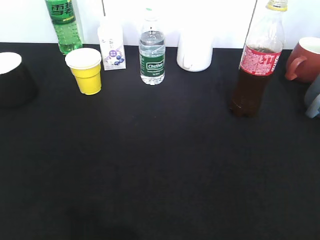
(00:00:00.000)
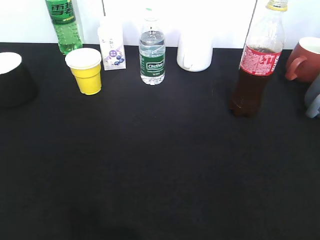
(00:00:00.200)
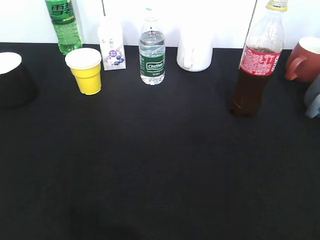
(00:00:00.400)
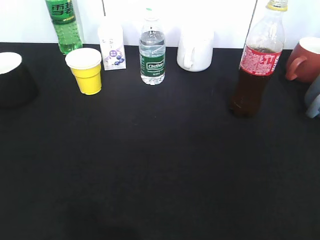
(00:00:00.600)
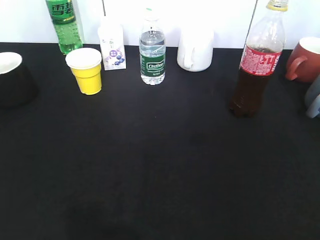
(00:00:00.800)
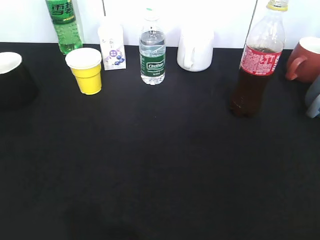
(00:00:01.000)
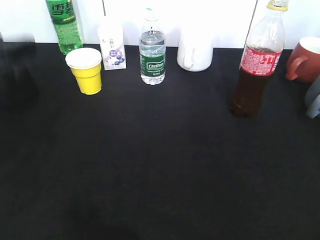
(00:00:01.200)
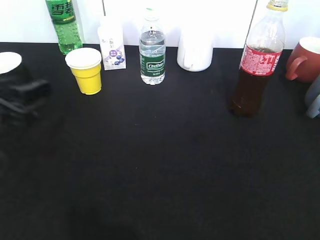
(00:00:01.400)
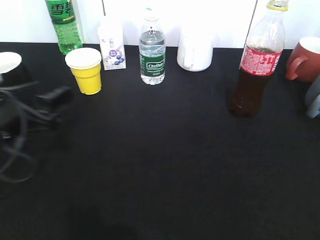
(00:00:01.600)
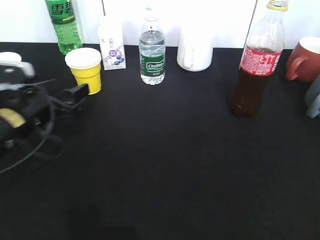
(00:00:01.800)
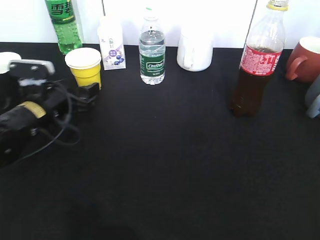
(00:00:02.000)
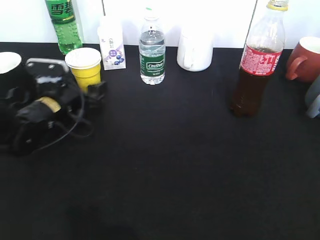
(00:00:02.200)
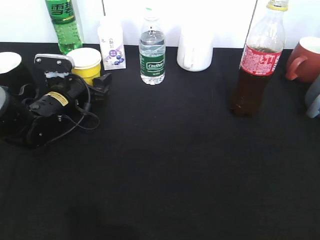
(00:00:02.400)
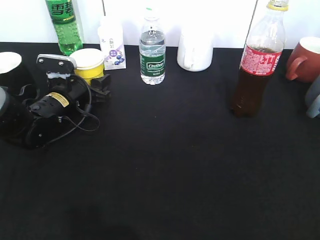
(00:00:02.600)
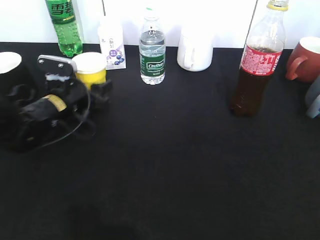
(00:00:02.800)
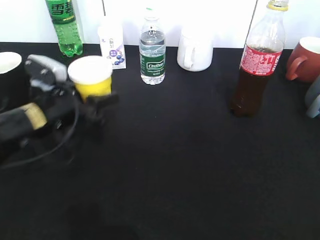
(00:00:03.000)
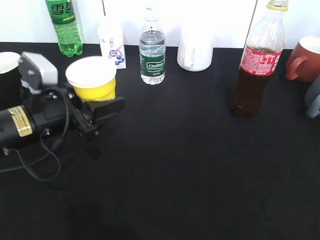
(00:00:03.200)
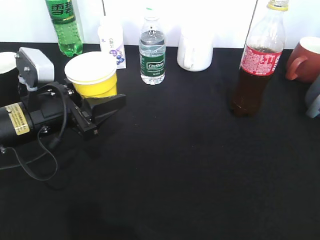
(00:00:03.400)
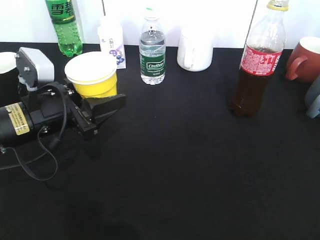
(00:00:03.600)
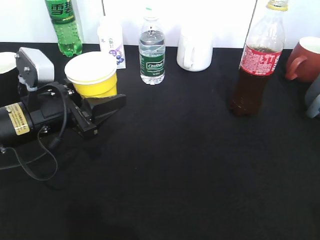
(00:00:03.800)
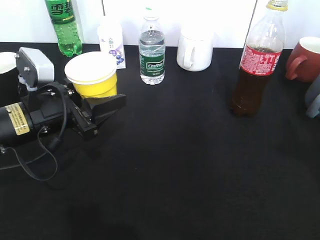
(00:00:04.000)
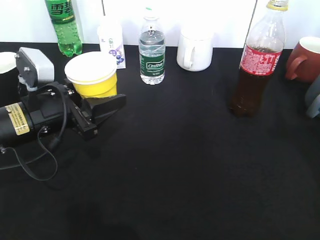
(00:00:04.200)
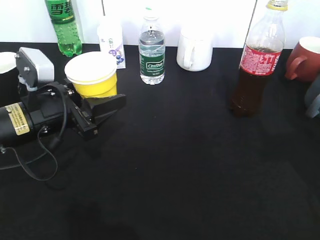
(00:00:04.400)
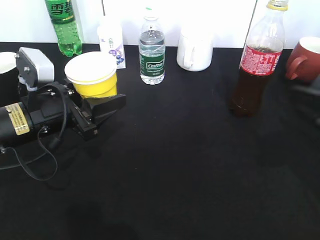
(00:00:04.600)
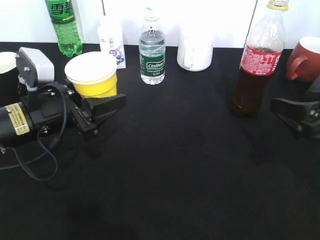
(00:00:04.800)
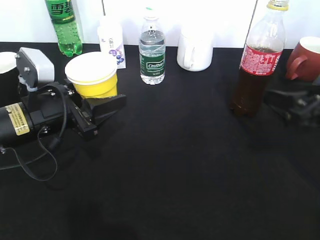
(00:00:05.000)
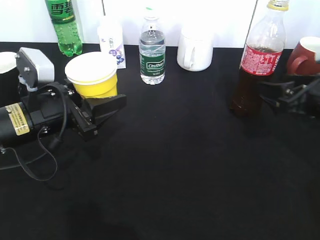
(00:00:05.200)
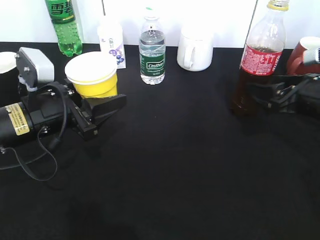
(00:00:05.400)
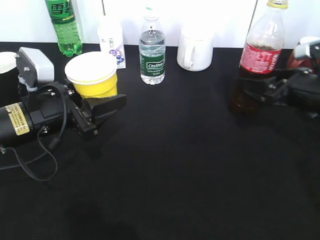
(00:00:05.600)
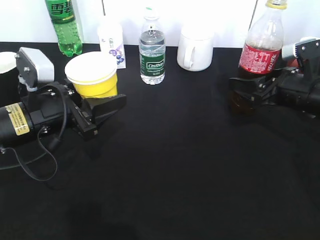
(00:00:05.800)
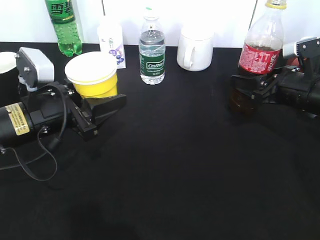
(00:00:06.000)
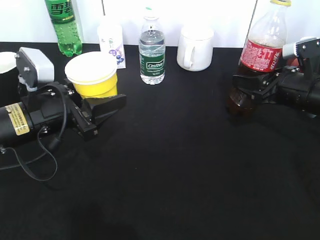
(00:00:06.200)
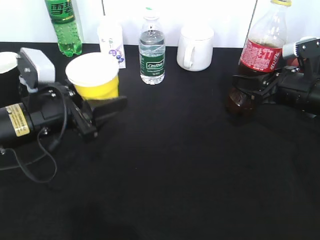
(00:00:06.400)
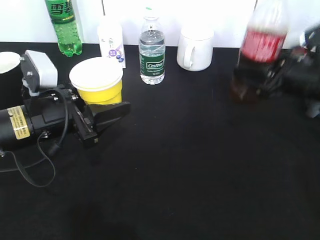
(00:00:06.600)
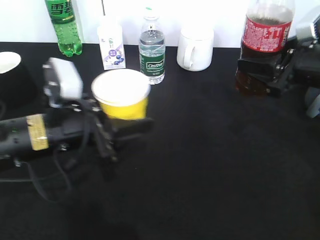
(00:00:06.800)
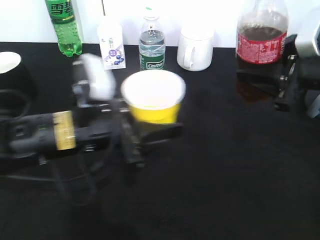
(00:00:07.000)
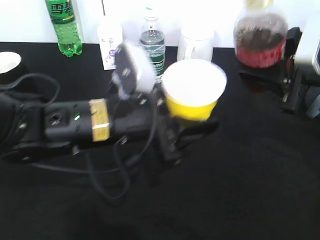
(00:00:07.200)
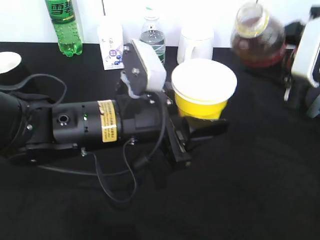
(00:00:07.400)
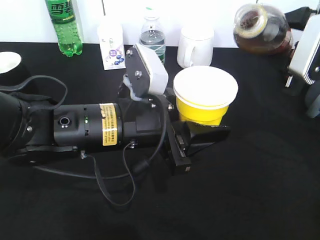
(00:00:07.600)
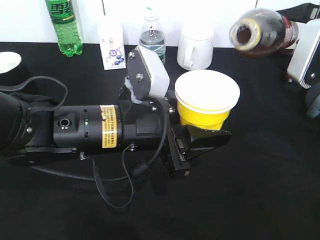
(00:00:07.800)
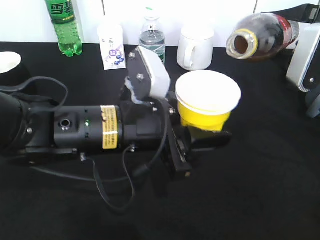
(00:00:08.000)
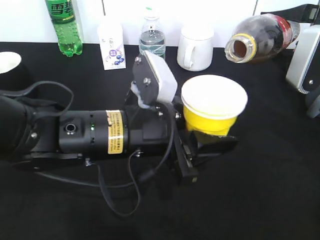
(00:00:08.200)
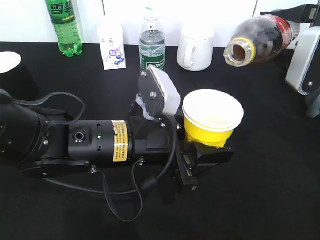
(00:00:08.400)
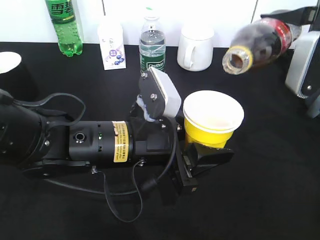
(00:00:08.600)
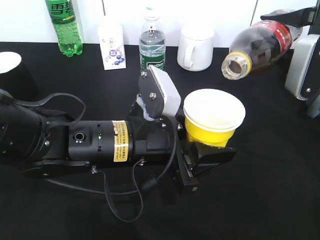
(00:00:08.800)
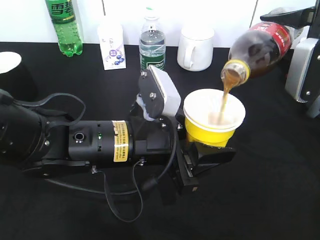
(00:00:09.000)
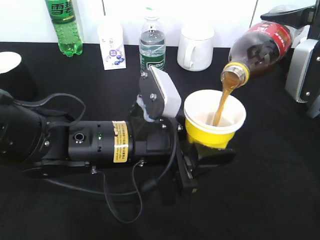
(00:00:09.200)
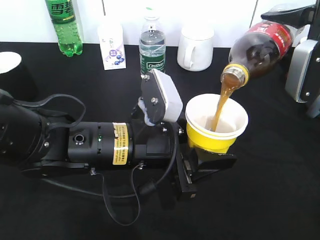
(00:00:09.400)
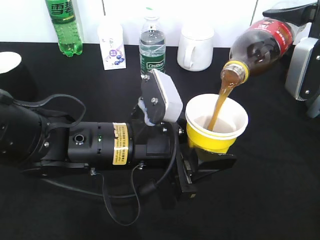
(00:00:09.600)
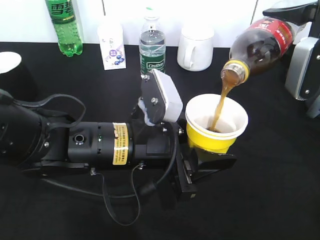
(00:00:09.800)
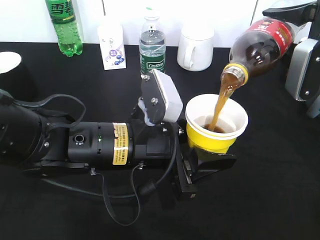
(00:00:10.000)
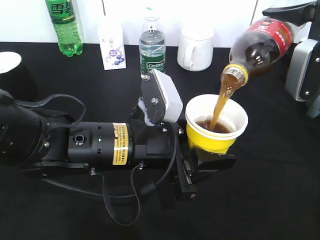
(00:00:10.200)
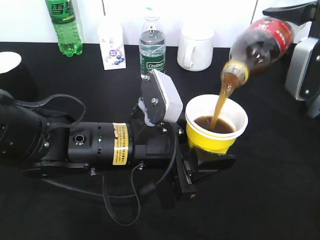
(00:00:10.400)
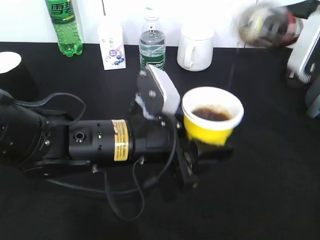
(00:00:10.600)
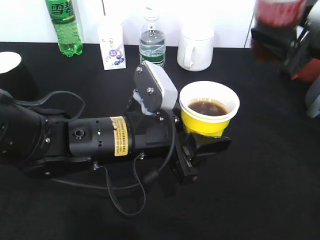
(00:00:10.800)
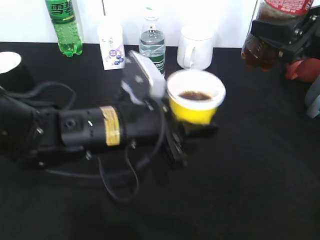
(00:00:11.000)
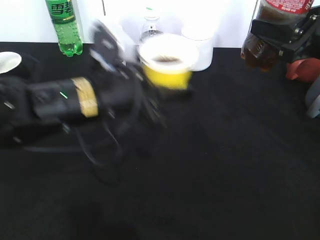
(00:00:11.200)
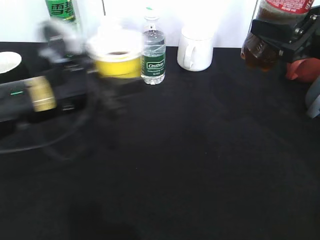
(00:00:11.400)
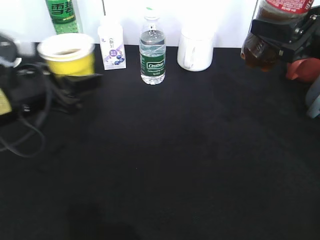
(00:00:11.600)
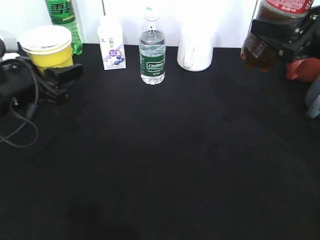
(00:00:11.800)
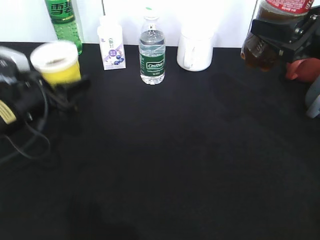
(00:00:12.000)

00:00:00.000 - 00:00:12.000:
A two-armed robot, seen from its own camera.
Step, 00:00:00.000 - 00:00:02.400: Grasp the yellow paper cup with left gripper.
Step, 00:00:02.800 - 00:00:04.200: Lift the yellow paper cup with left gripper.
Step, 00:00:04.600 - 00:00:06.200: Grasp the bottle with cola with right gripper.
Step, 00:00:06.400 - 00:00:10.600: Pour the cola from bottle to cup with right gripper.
00:00:00.000 - 00:00:01.600: The left gripper moves forward, downward and to the right, approximately 30 cm, and opens its fingers.
00:00:01.600 - 00:00:03.000: The left gripper goes some 5 cm forward, and closes its fingers.
00:00:03.000 - 00:00:04.400: The right gripper shifts some 20 cm forward.
00:00:04.400 - 00:00:06.000: The right gripper travels forward and downward by roughly 20 cm.
00:00:06.000 - 00:00:07.600: The left gripper heads to the right, covering approximately 15 cm. Meanwhile the right gripper shifts approximately 10 cm upward, and closes up.
00:00:09.000 - 00:00:10.400: The grippers move only a little.
00:00:10.400 - 00:00:12.000: The left gripper goes approximately 20 cm to the left and forward.

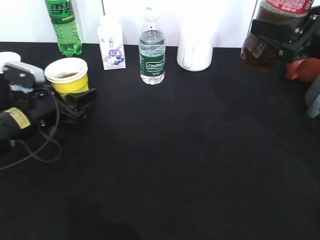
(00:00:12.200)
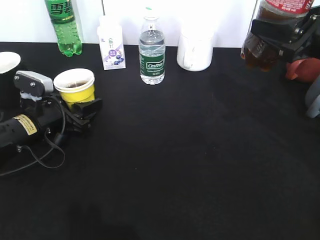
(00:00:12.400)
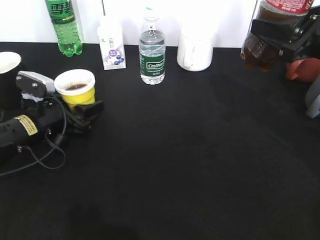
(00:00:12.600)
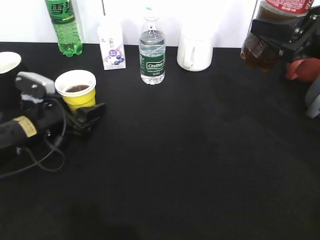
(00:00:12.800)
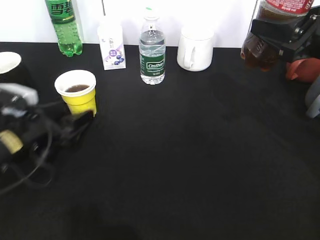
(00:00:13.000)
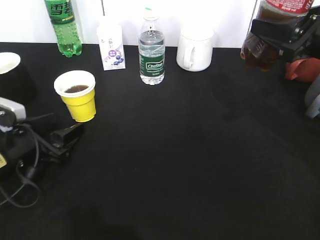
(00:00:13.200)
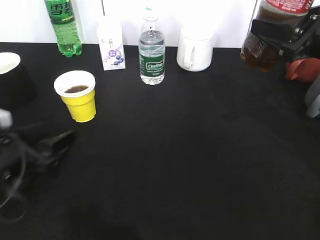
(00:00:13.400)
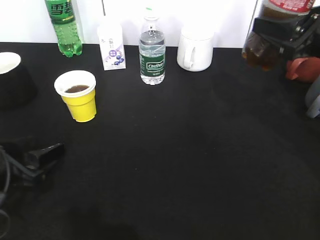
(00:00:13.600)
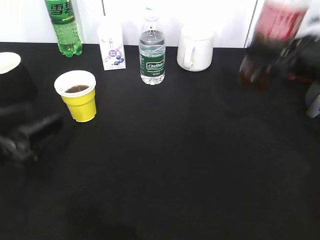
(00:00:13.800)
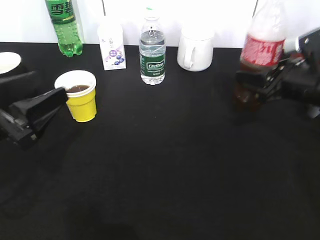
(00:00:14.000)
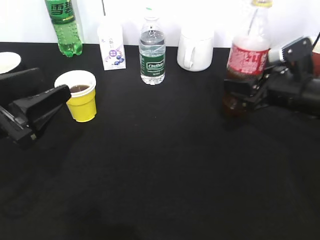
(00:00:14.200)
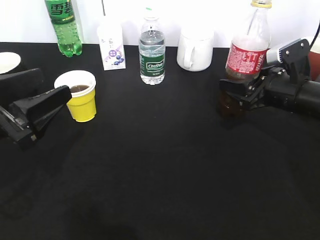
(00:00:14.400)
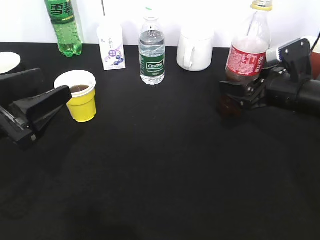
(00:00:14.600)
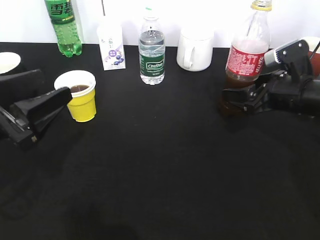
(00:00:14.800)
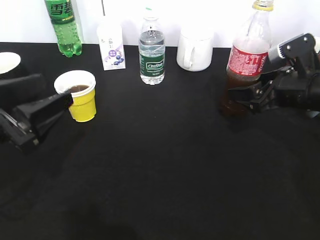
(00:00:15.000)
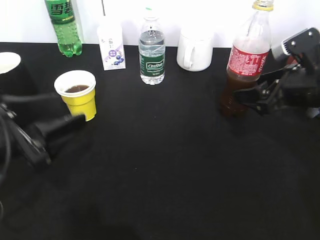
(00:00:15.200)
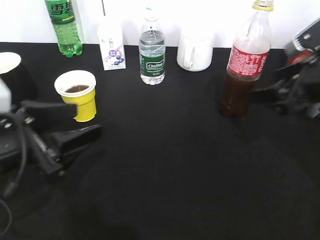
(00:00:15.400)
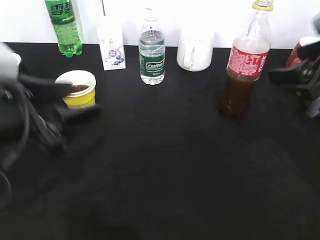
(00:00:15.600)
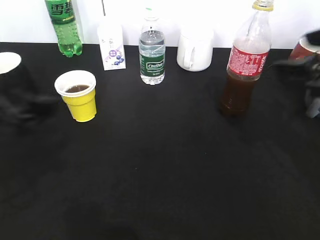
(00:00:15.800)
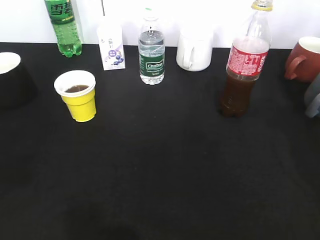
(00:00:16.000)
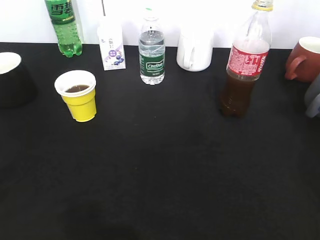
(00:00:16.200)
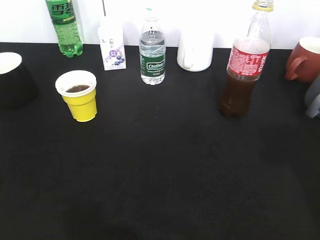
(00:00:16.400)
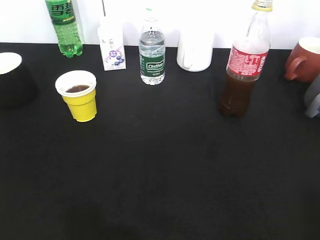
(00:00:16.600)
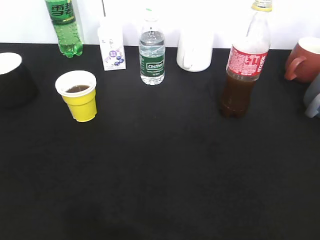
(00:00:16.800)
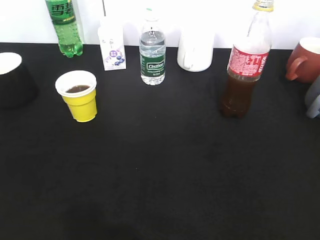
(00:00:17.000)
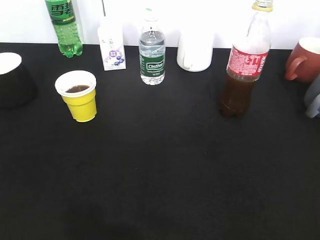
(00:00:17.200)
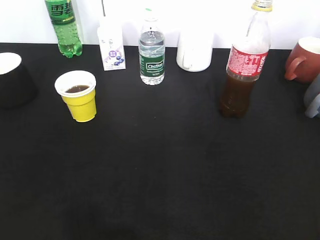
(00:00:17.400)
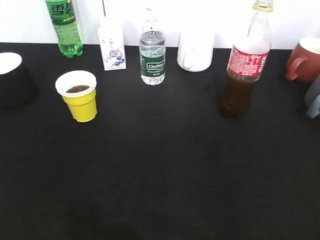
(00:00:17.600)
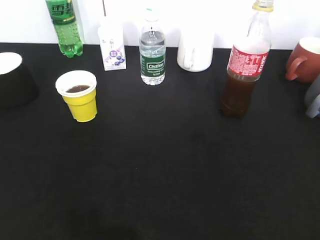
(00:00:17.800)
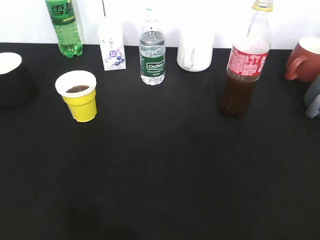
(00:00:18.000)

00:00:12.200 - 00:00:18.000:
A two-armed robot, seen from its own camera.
Step, 00:00:13.400 - 00:00:15.400: Place the cola bottle on the table with right gripper.
00:00:12.200 - 00:00:13.600: The left gripper goes approximately 10 cm backward, and opens.
00:00:13.600 - 00:00:15.000: The right gripper is displaced downward by approximately 10 cm, and opens its fingers. Meanwhile the left gripper is displaced upward by some 10 cm.
00:00:15.000 - 00:00:16.600: The right gripper is displaced backward and upward by approximately 35 cm; the left gripper shifts some 20 cm backward, upward and to the left.
